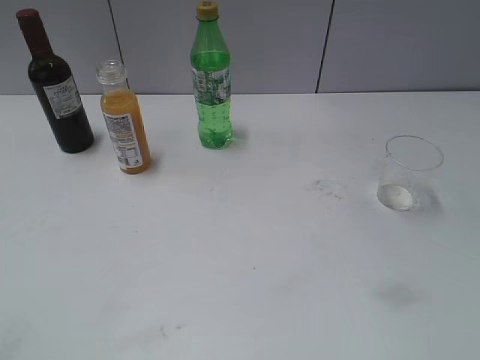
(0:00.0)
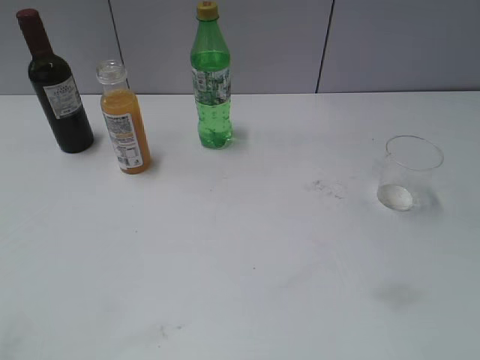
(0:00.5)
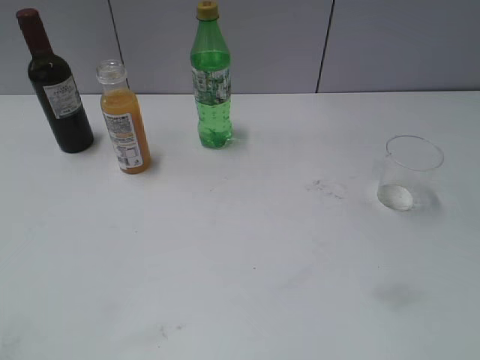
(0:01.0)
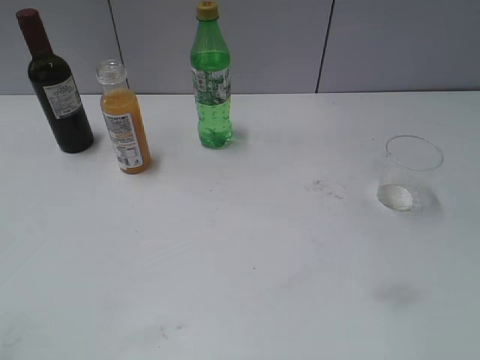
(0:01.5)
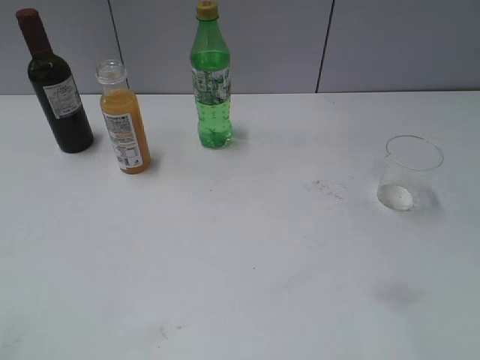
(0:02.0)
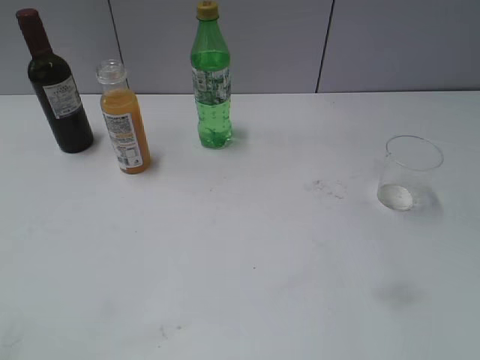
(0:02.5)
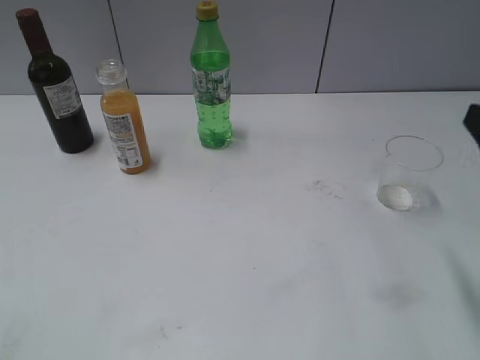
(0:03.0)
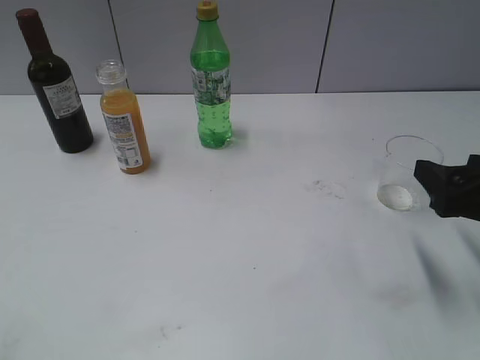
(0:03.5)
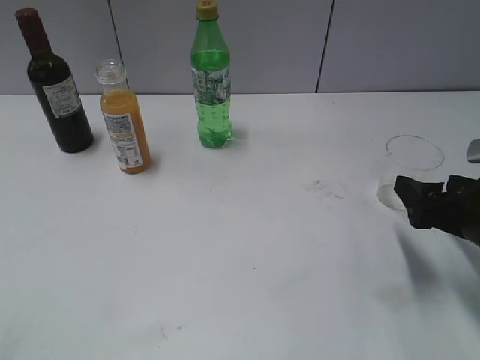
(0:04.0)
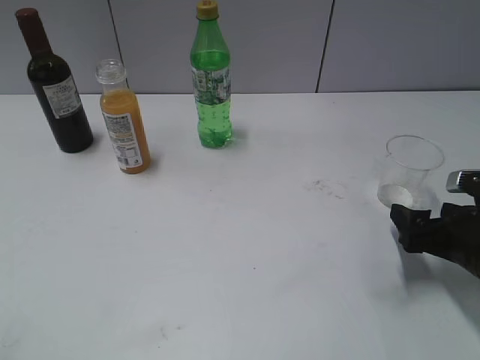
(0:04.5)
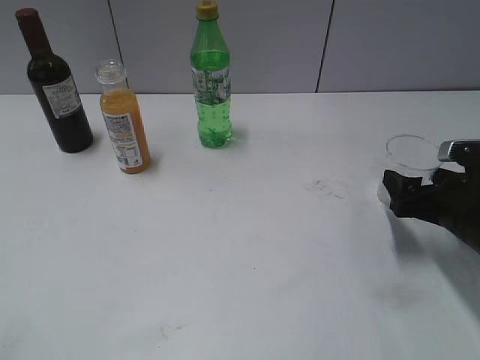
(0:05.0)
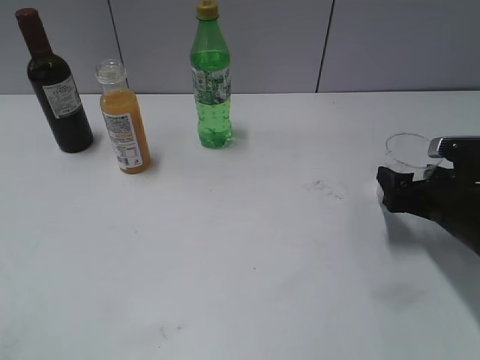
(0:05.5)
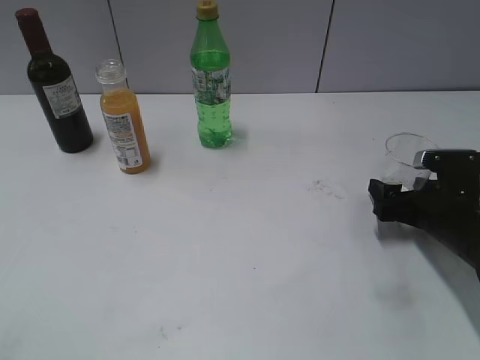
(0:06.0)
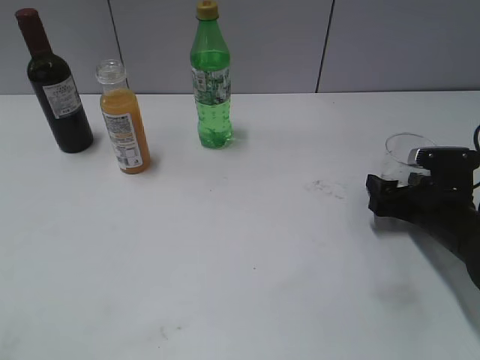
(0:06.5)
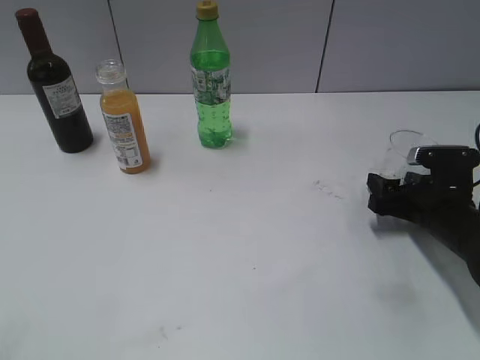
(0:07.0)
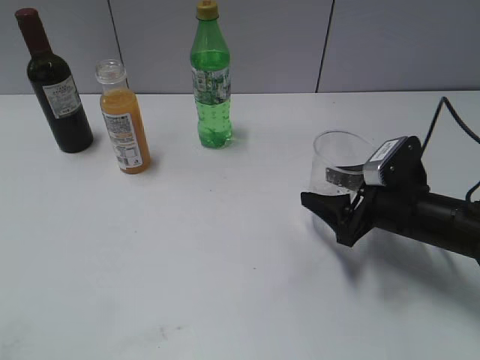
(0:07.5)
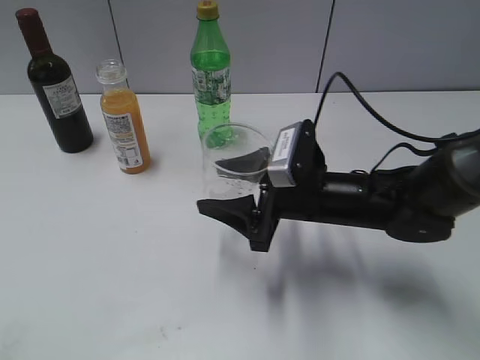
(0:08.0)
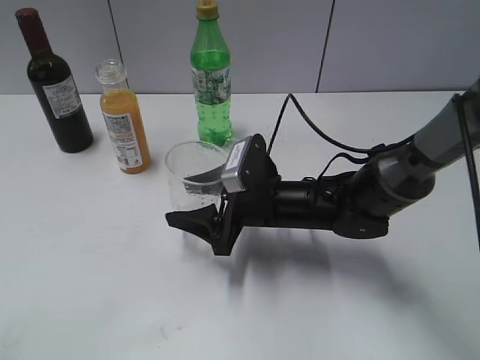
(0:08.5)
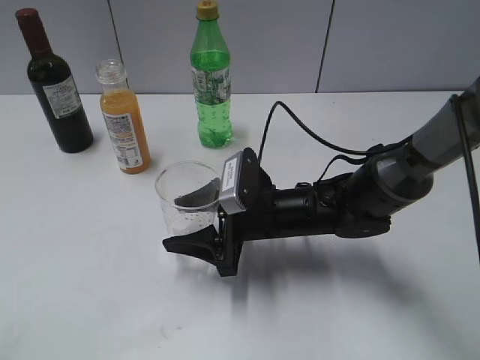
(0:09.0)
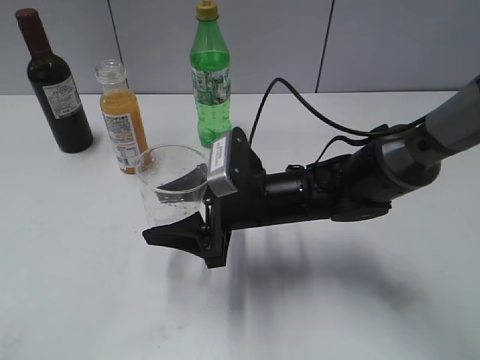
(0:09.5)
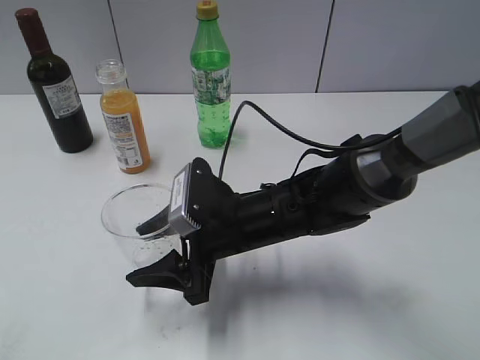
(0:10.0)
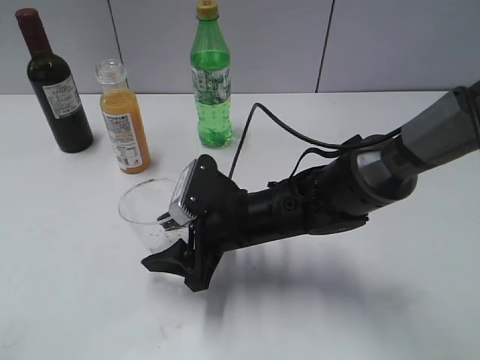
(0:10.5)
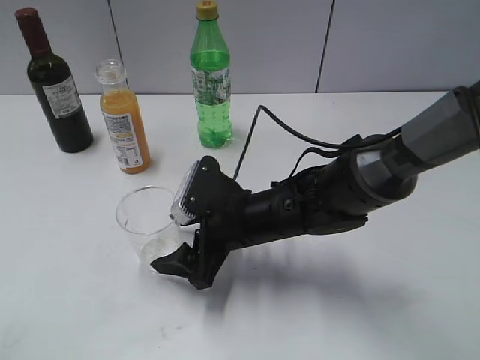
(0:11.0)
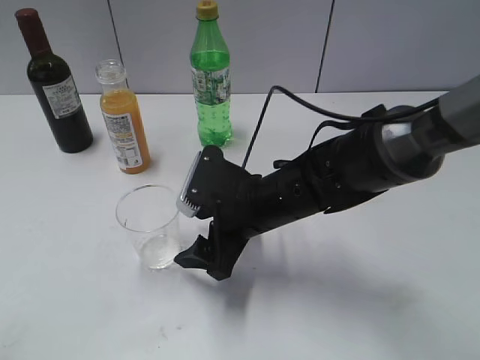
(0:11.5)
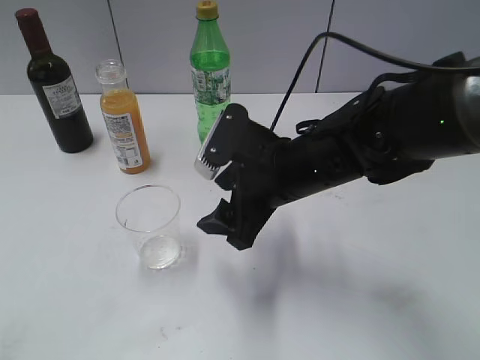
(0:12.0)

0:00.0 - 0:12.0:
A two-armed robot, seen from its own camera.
Step, 0:03.0 - 0:06.5: Grasp the transparent cup with right gripper.
Step, 0:07.0 - 0:11.5: Place the transparent cup on the table with right gripper.
0:02.0 - 0:04.0: The right gripper moves downward and forward, roughly 25 cm, and opens up.
0:04.0 - 0:06.0: The right gripper travels downward and forward by some 10 cm.
0:06.0 - 0:08.0: The right gripper goes about 15 cm to the left, and closes up.
0:08.0 - 0:10.0: The right gripper goes about 10 cm to the left.
0:10.0 - 0:12.0: The right gripper goes some 5 cm upward, and opens.

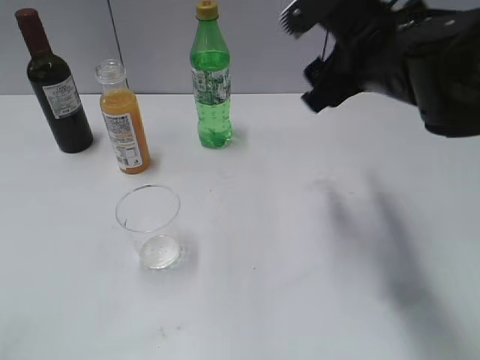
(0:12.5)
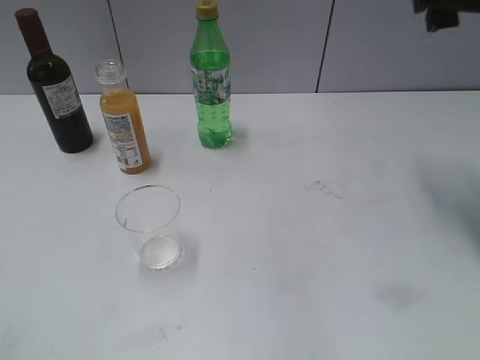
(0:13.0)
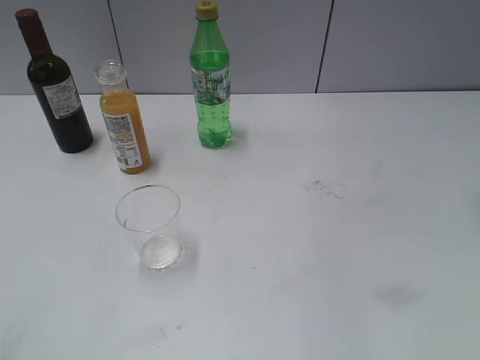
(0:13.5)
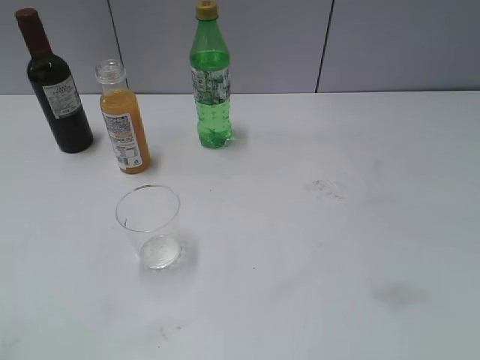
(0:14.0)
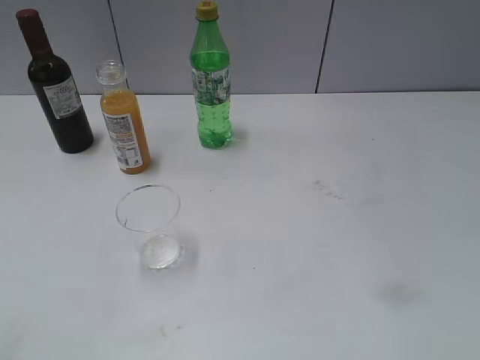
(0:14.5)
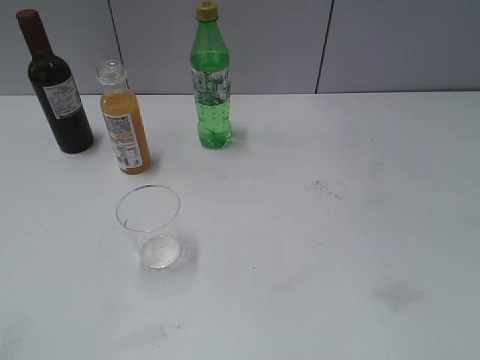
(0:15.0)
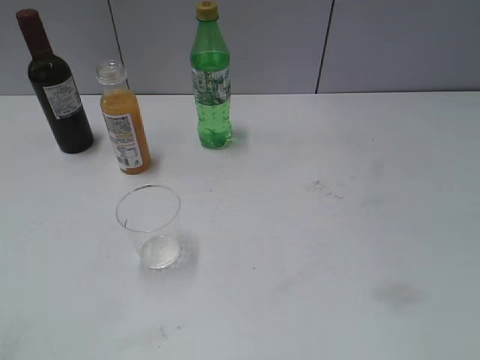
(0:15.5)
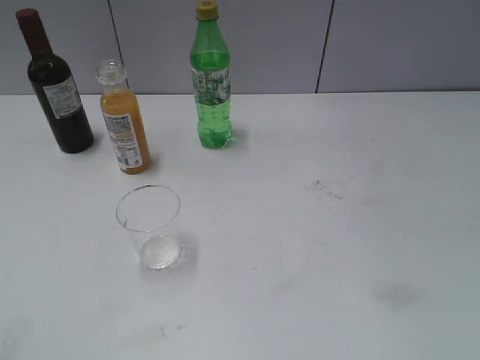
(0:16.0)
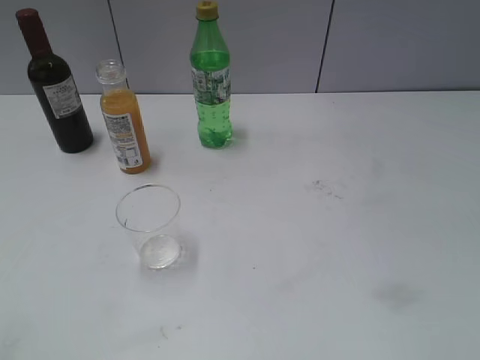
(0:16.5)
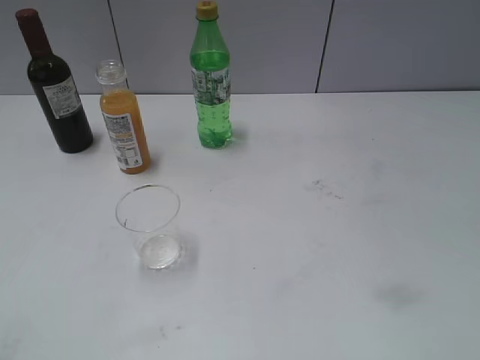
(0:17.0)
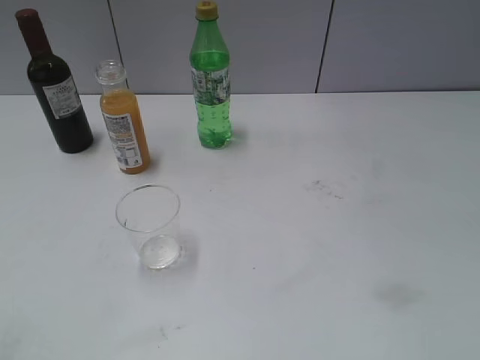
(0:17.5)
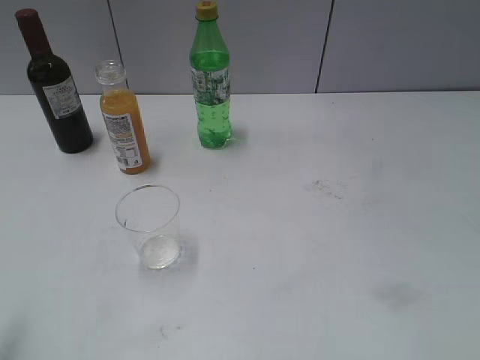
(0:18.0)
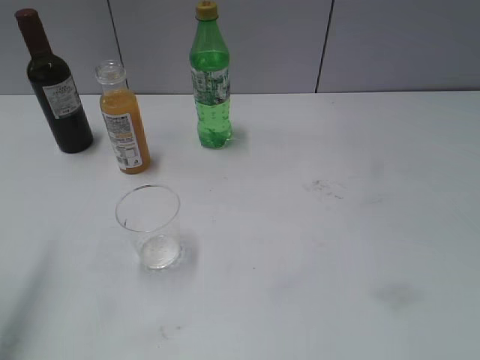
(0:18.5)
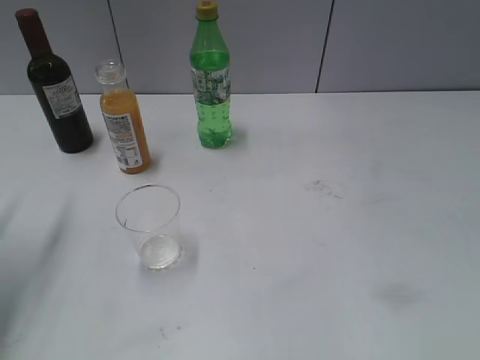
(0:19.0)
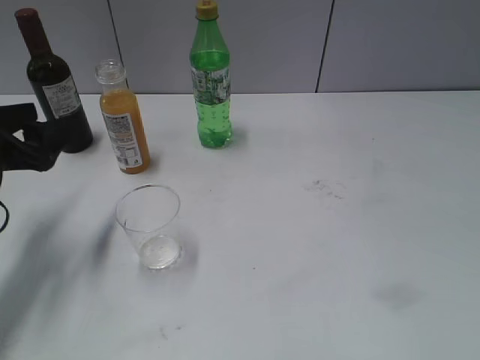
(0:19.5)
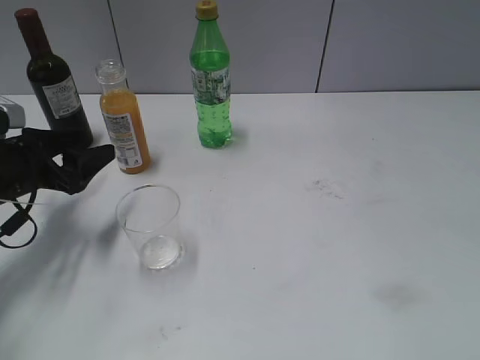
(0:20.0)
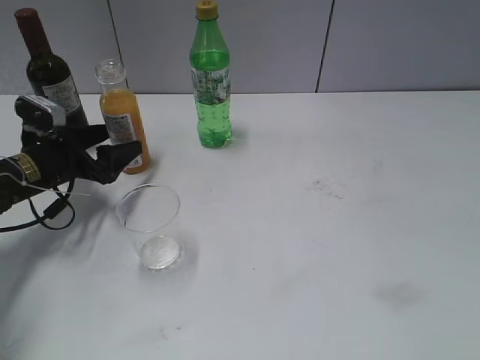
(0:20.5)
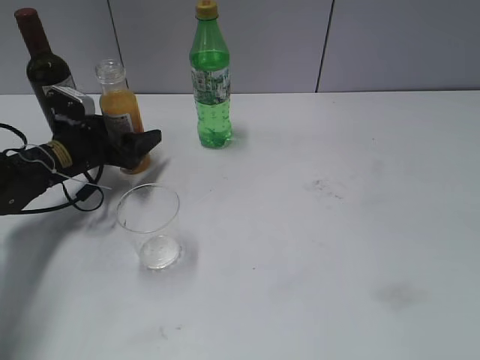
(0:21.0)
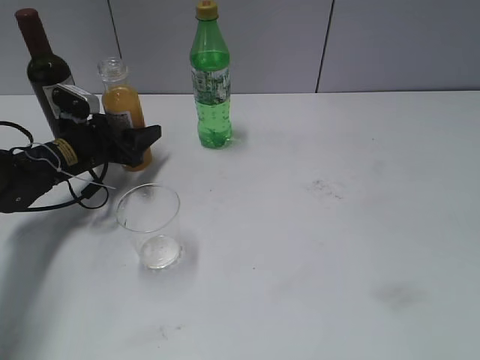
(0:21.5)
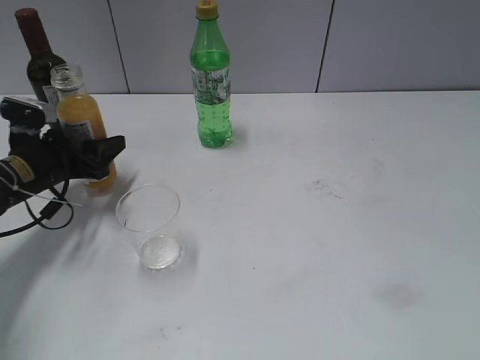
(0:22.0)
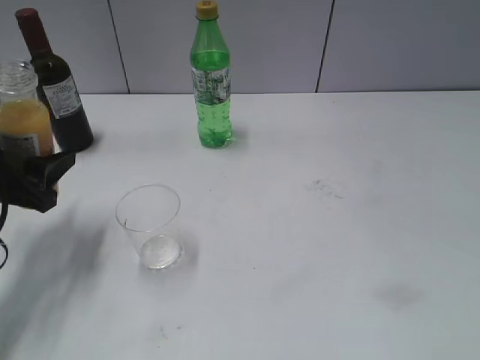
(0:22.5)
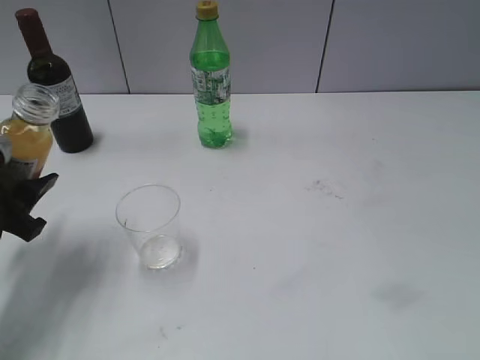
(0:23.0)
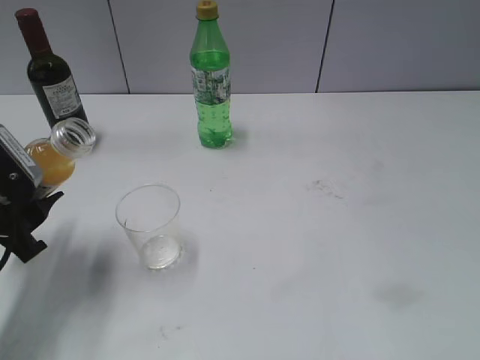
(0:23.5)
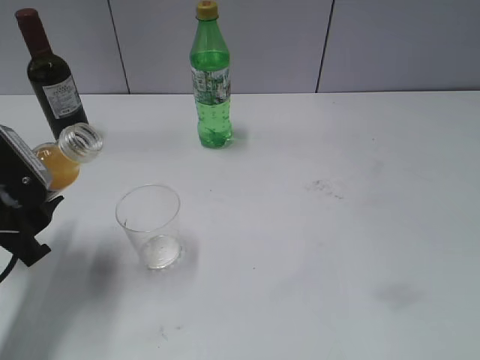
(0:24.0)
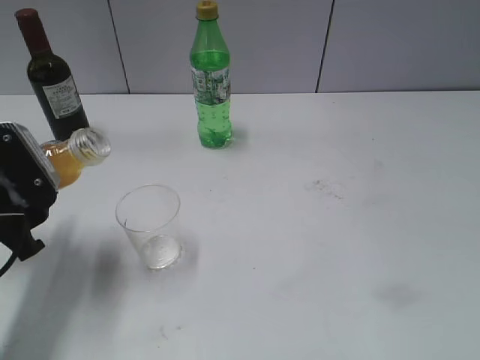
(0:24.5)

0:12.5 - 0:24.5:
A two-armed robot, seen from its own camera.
Step, 0:12.5 - 0:21.5: Grasp the bottle with orange juice with left gripper.
0:12.5 - 0:14.5: The right gripper moves backward and to the right, roughly 30 cm.
0:16.5 - 0:18.5: The left gripper shifts about 20 cm forward, and opens.
0:18.5 - 0:20.5: The left gripper heads downward and forward, covering approximately 30 cm.
0:20.5 - 0:22.5: The left gripper is displaced backward and upward by roughly 10 cm, and closes its fingers.

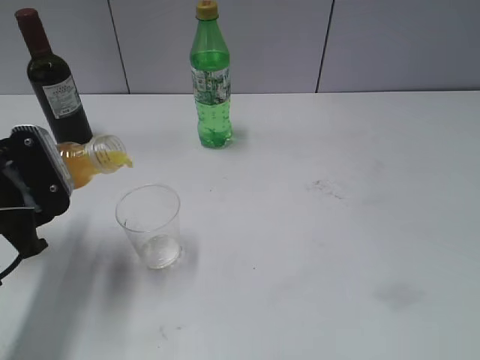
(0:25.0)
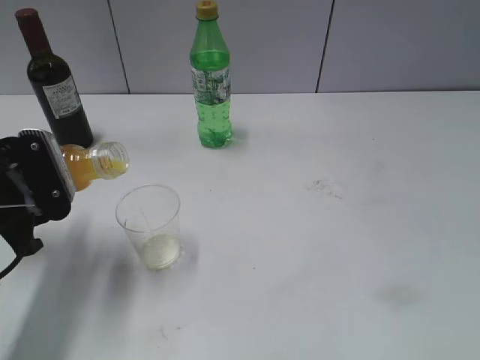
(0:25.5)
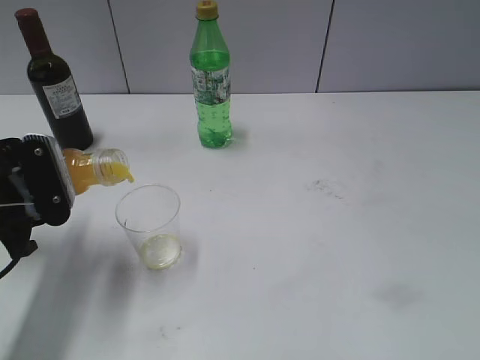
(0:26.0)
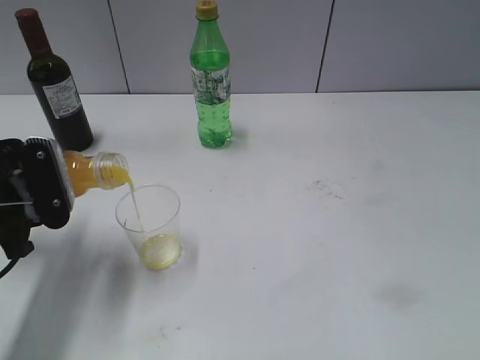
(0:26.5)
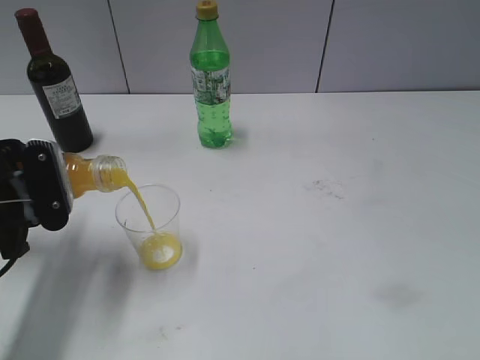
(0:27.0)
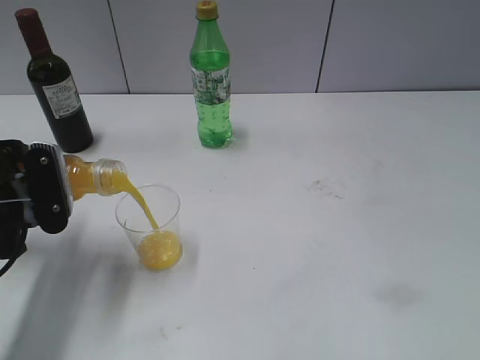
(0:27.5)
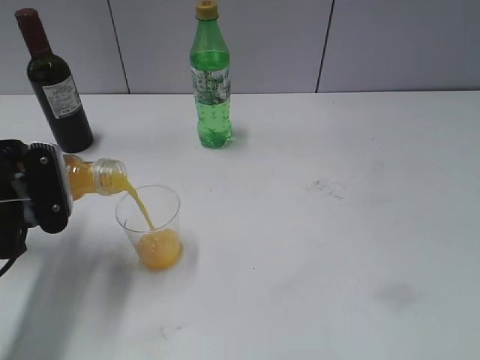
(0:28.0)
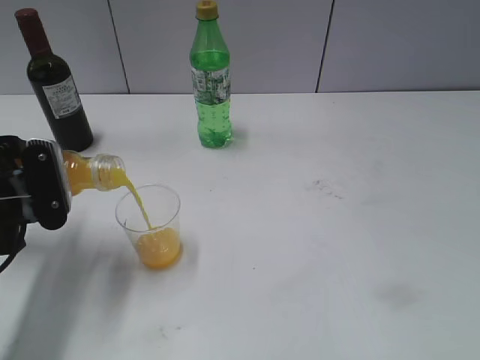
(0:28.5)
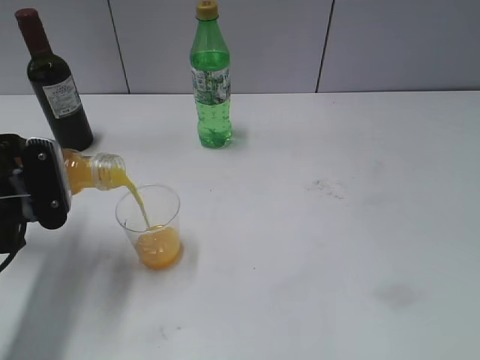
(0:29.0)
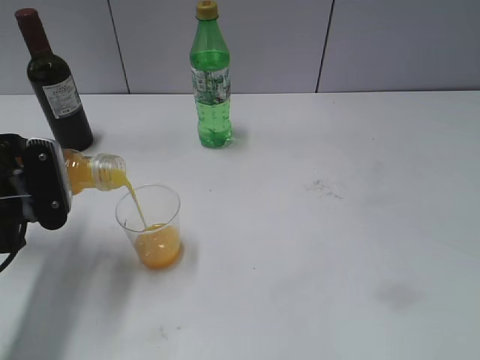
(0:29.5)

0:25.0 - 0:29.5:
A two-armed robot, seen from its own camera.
0:25.0 - 0:27.0: The grippers make only small movements.
0:27.0 - 0:29.5: Both grippers stay about where they are.
